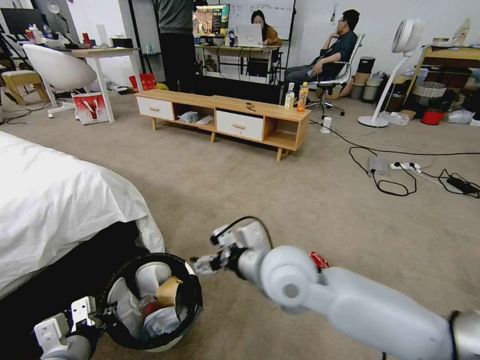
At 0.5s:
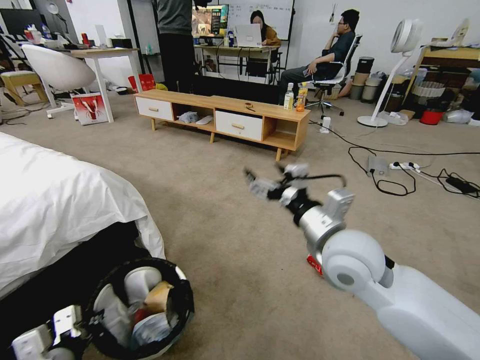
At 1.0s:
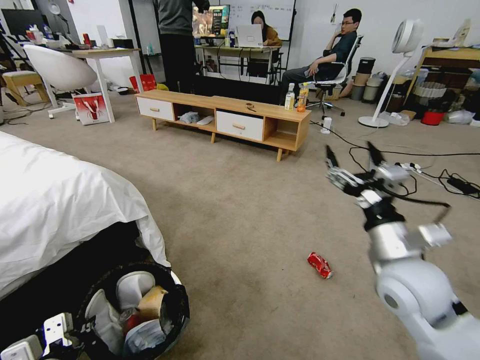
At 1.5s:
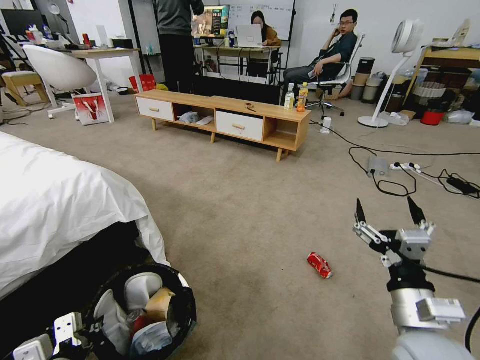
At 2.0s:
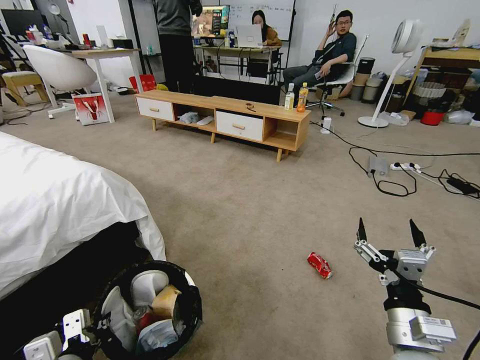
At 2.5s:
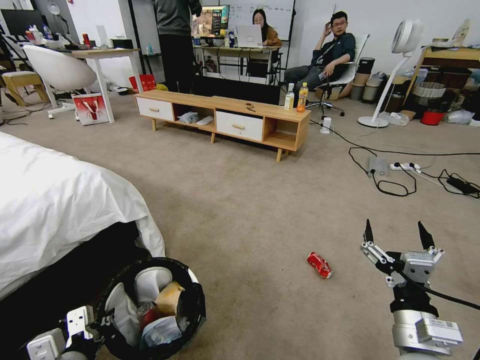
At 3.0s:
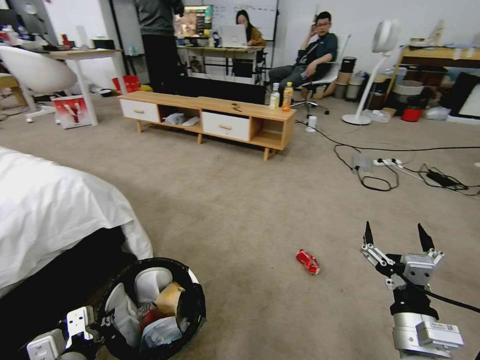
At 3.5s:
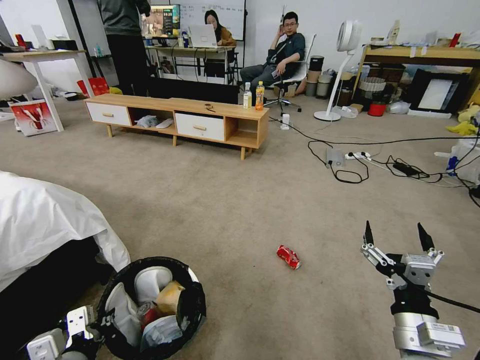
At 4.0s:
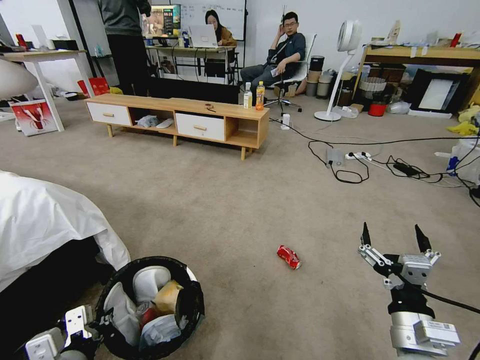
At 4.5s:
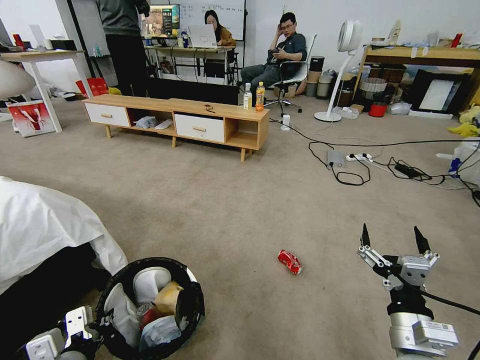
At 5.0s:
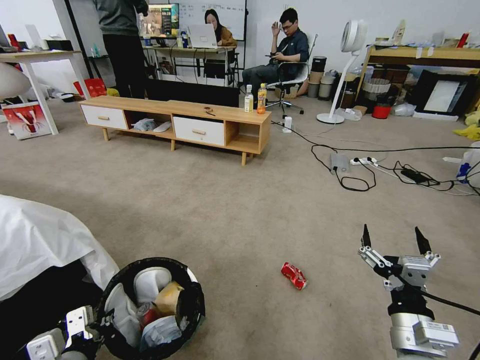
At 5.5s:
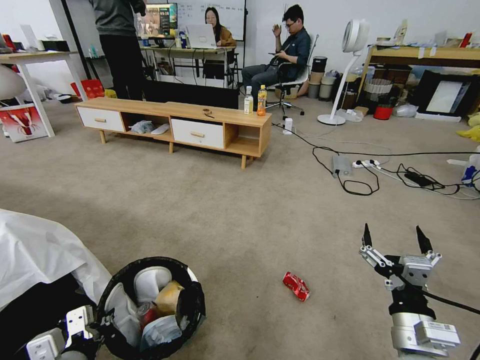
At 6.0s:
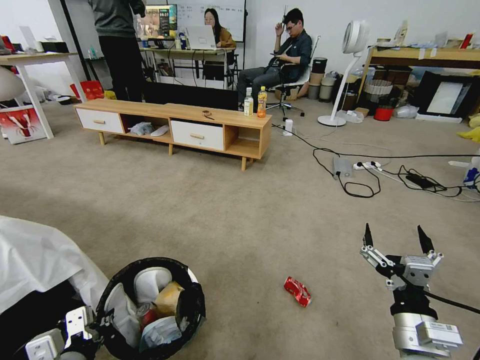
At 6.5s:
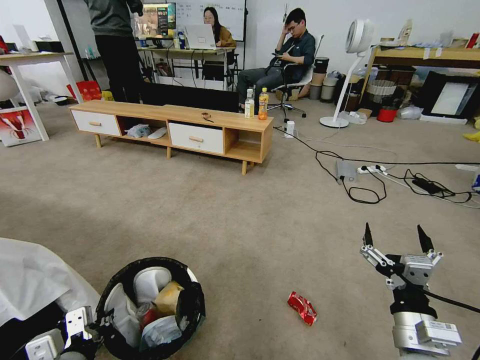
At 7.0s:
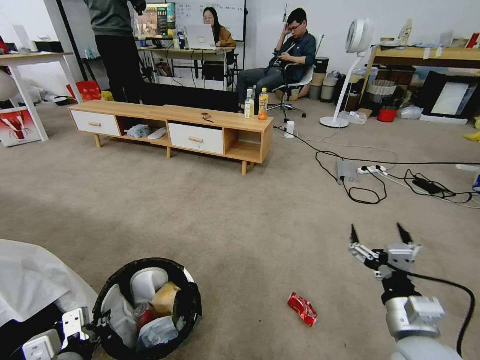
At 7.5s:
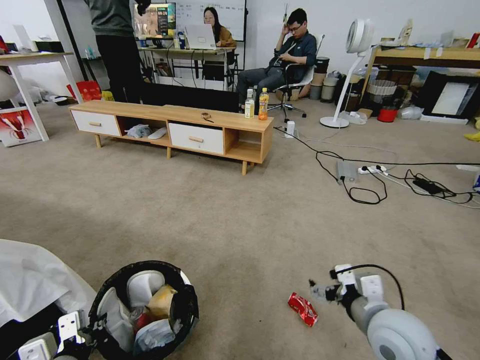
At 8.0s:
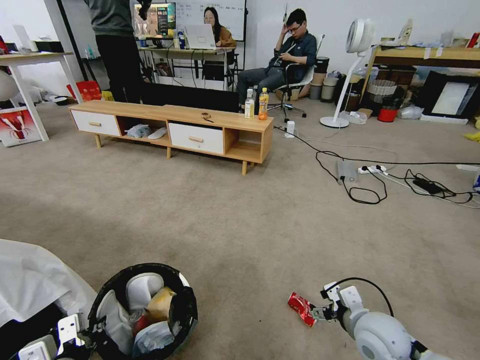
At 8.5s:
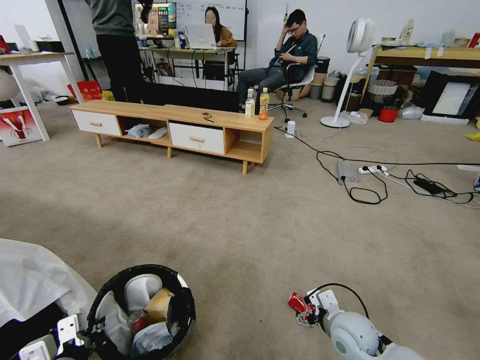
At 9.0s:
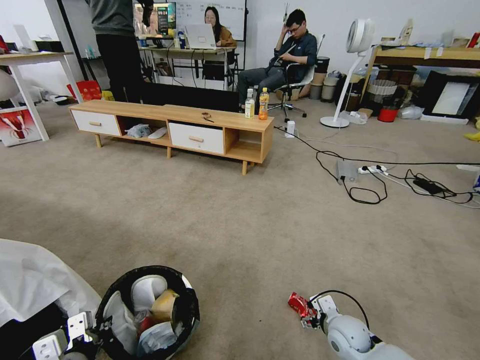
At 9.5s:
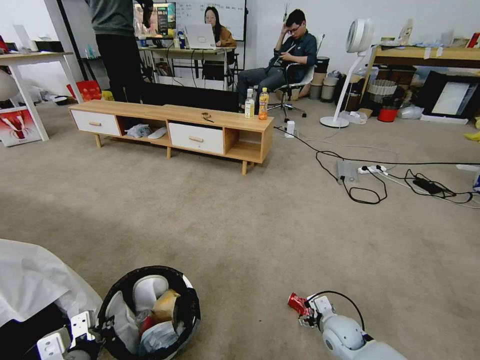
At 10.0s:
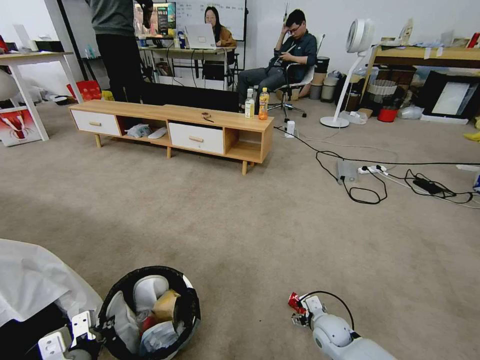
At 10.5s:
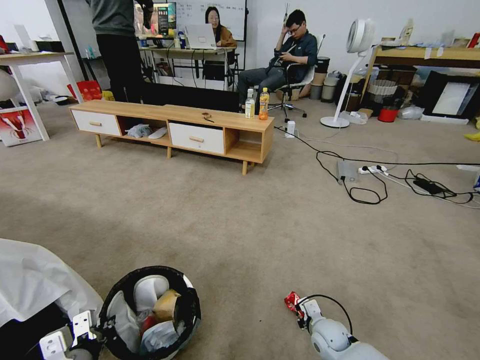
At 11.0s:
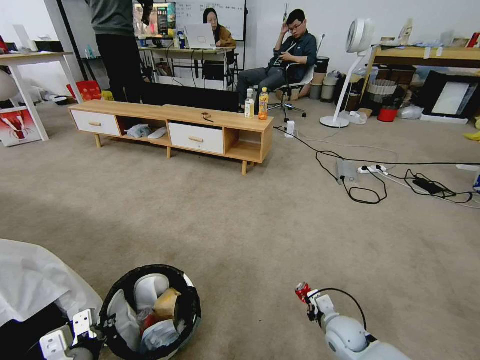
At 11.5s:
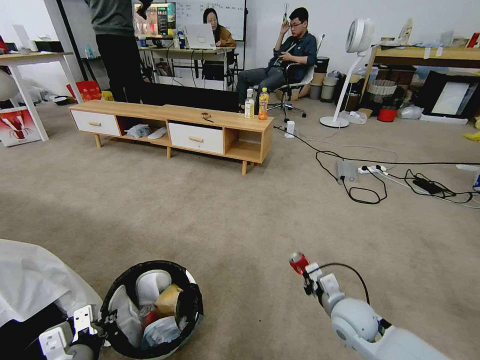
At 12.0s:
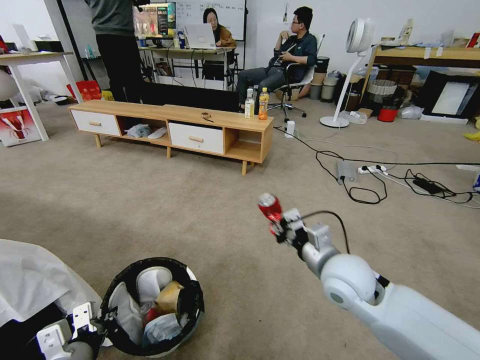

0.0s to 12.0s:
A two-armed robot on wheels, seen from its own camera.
Task of the whole recording: Pick up the trash bin and place the garbage on the floor into it.
0.0s to 2.0s: The right gripper travels to the right, backward and downward by approximately 25 cm.
6.0s to 8.0s: The right gripper heads forward and downward, covering roughly 10 cm.
8.0s to 10.0s: The right gripper heads downward and forward, covering roughly 20 cm.
10.0s to 12.0s: The right gripper moves upward, about 30 cm, and closes its fingers.

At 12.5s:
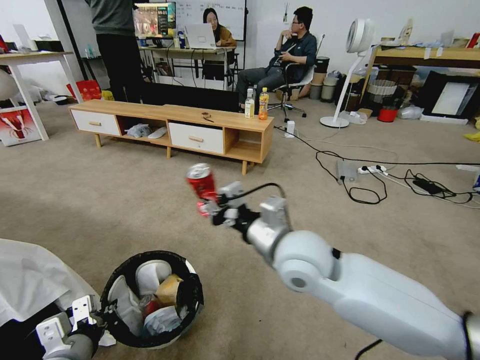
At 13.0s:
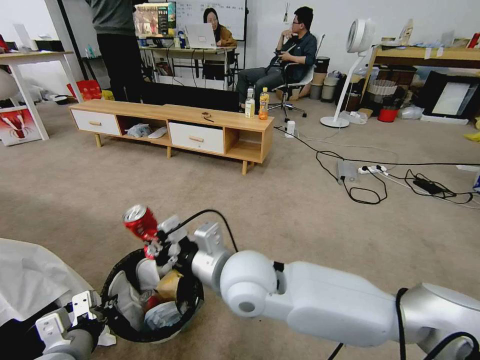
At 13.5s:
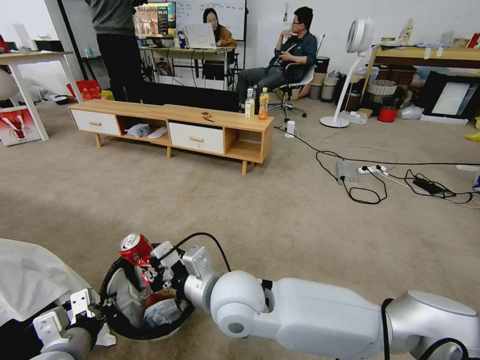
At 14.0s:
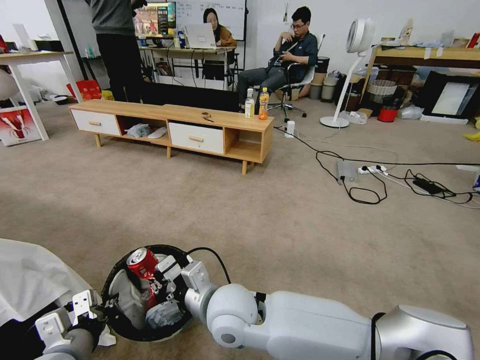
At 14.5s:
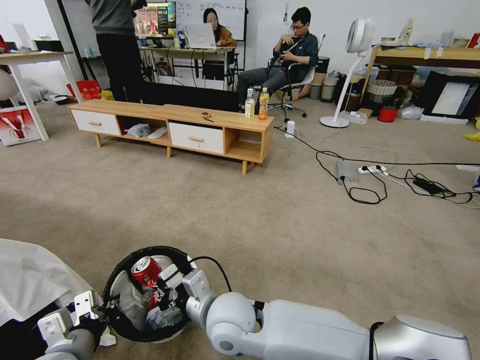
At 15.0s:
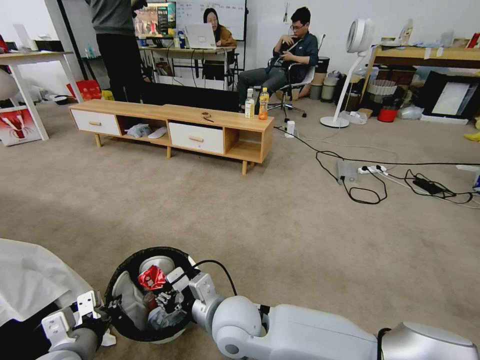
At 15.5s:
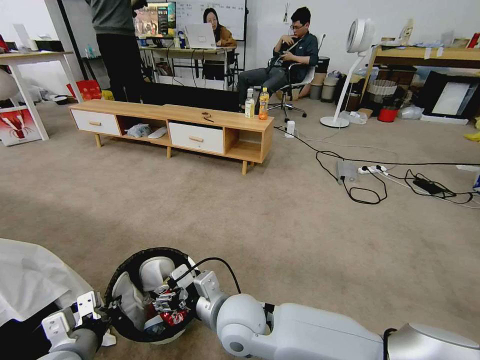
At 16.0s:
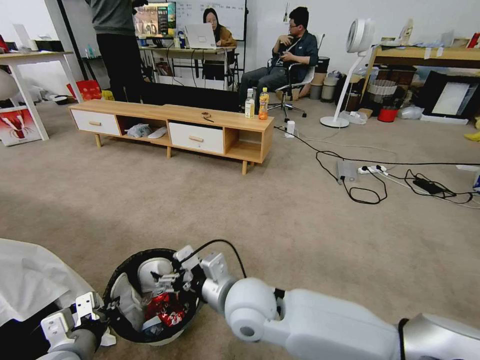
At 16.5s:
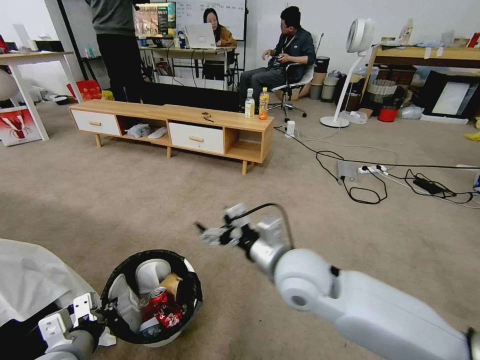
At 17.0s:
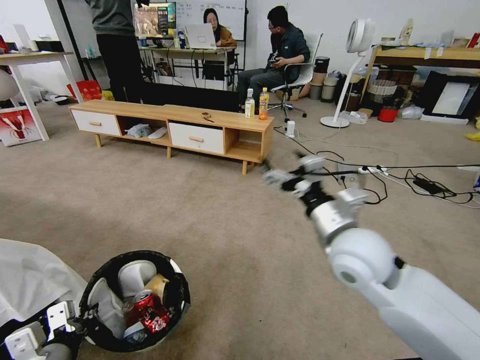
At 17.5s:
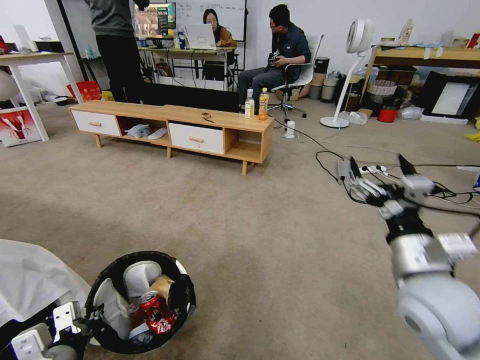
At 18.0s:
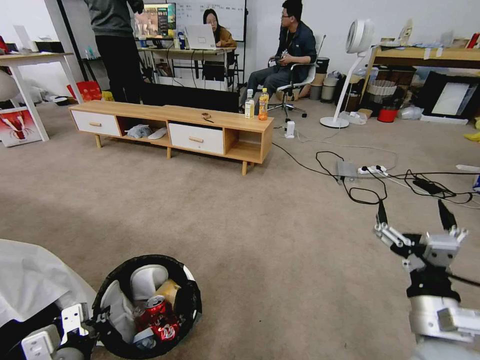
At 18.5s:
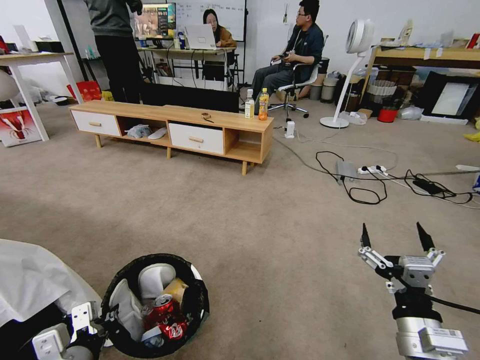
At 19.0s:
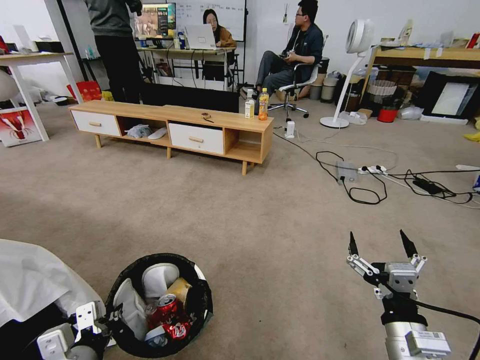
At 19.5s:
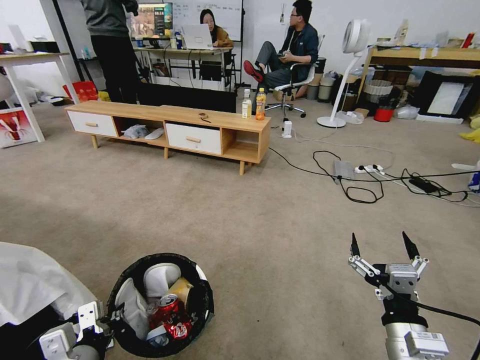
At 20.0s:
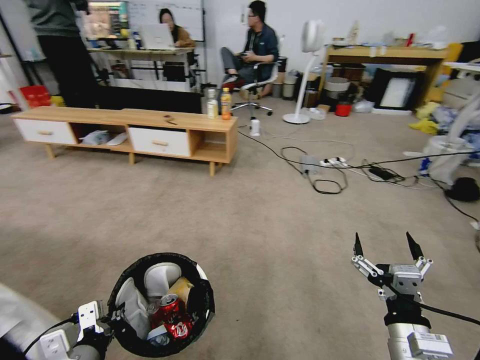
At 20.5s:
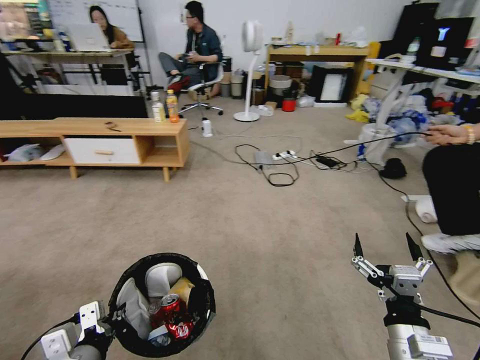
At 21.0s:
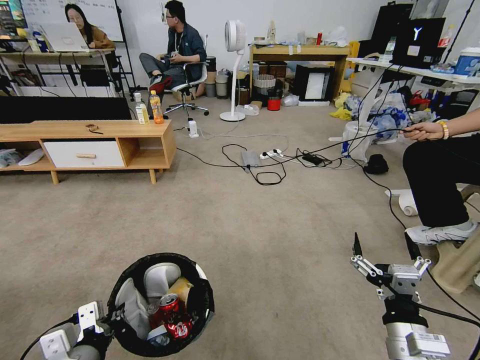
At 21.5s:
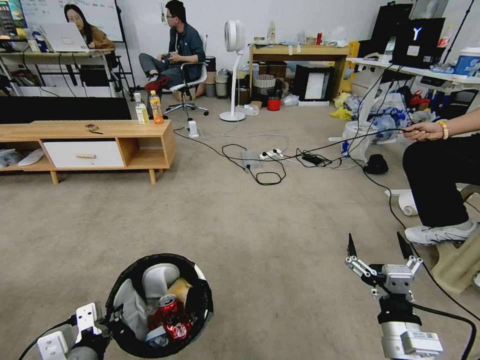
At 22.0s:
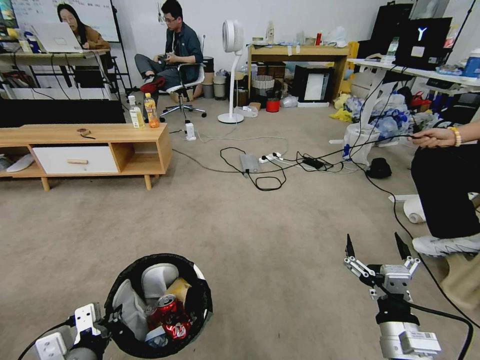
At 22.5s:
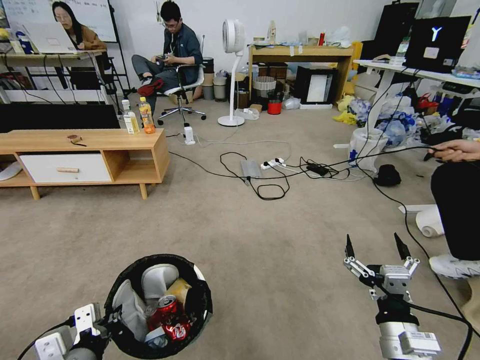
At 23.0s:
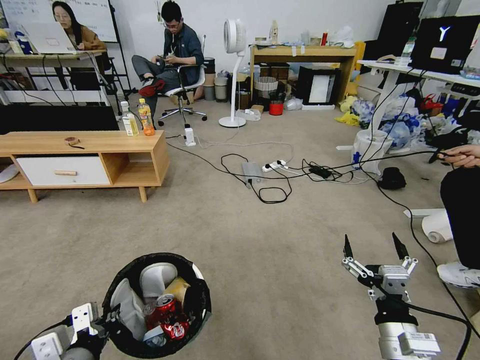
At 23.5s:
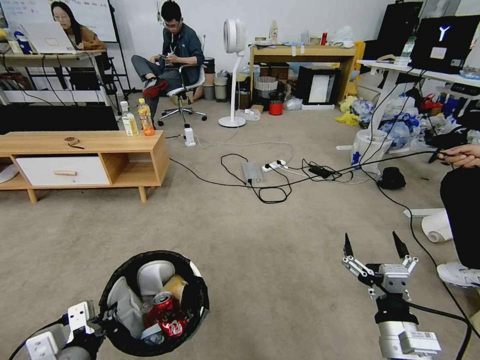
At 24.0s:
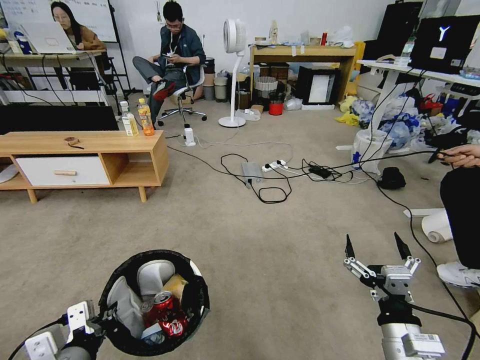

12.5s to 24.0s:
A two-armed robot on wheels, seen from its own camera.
Task of the whole recording: Pick up the trash bin and place the garbage on the floor into it.
12.5s to 14.5s: The right gripper travels downward and to the left by some 20 cm.
14.5s to 16.5s: The right gripper moves to the right and upward, some 15 cm, and opens its fingers.
16.5s to 18.5s: The left gripper changes place by about 5 cm. Meanwhile the right gripper shifts roughly 25 cm to the right, backward and downward.
